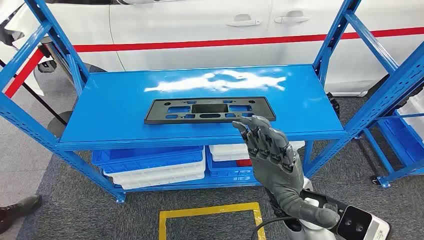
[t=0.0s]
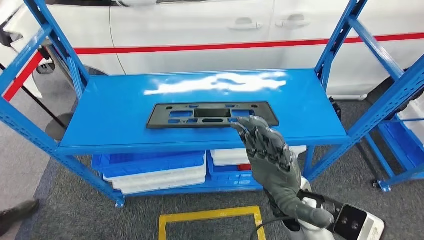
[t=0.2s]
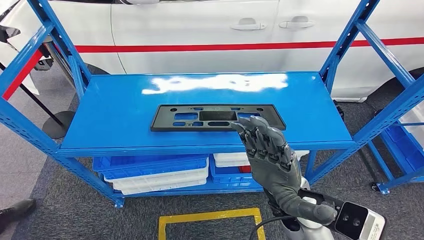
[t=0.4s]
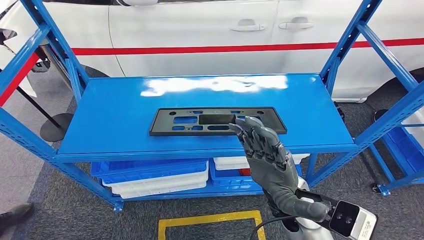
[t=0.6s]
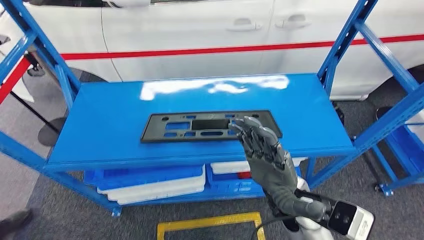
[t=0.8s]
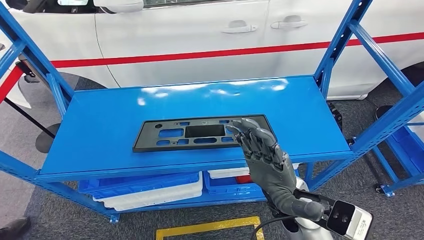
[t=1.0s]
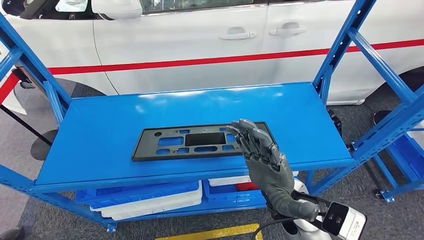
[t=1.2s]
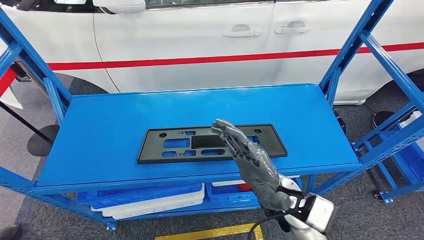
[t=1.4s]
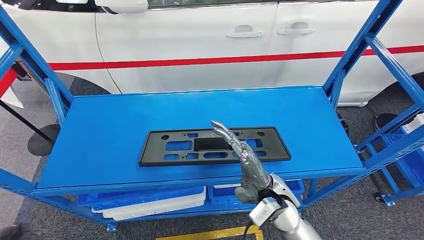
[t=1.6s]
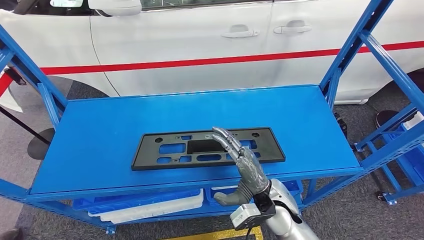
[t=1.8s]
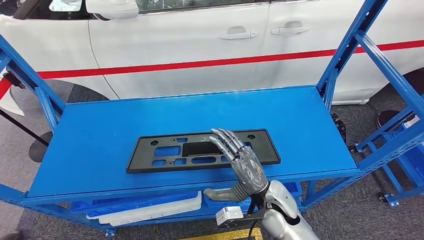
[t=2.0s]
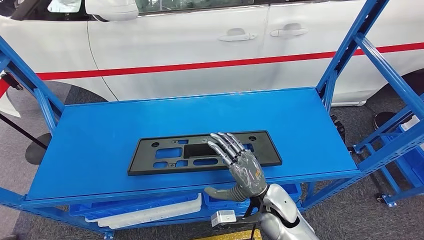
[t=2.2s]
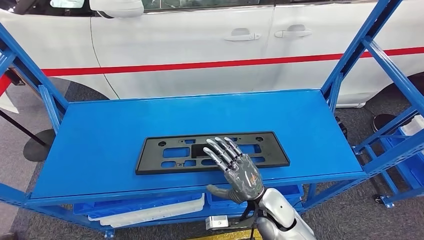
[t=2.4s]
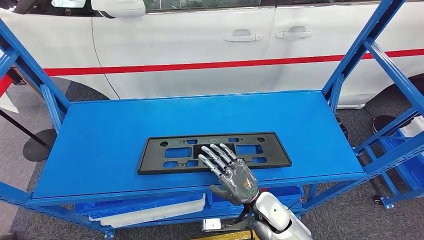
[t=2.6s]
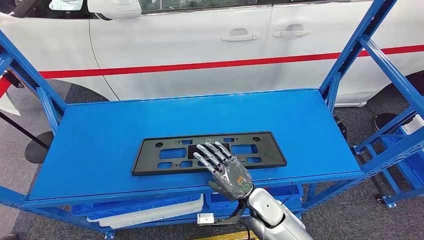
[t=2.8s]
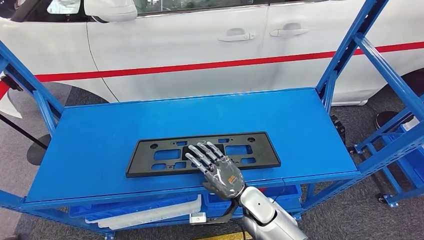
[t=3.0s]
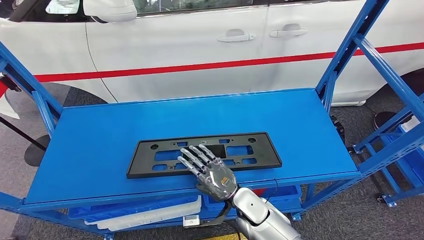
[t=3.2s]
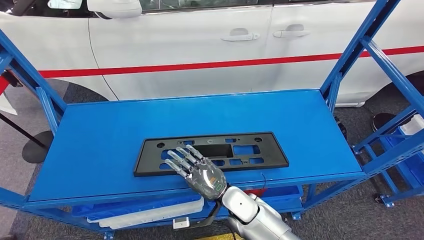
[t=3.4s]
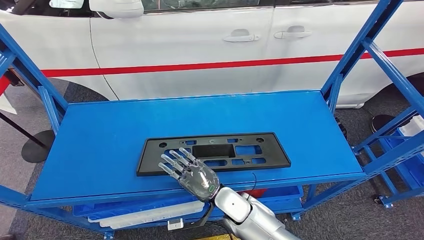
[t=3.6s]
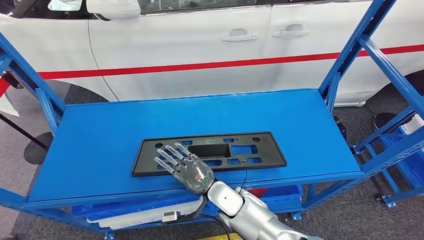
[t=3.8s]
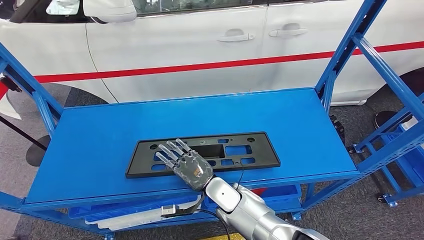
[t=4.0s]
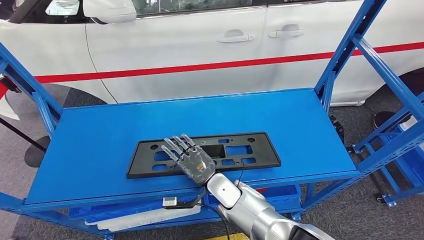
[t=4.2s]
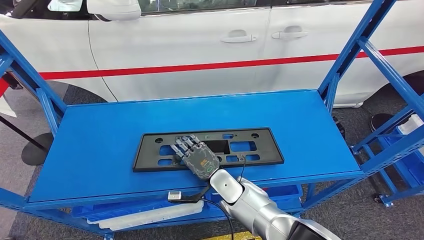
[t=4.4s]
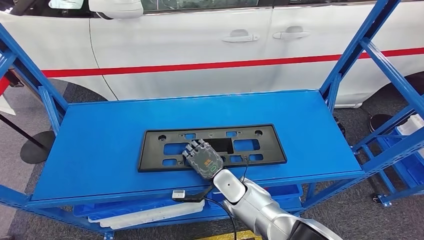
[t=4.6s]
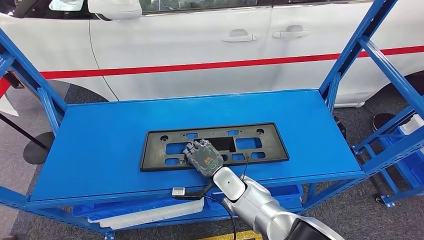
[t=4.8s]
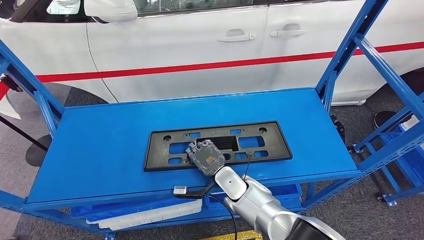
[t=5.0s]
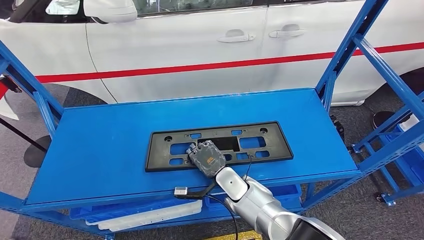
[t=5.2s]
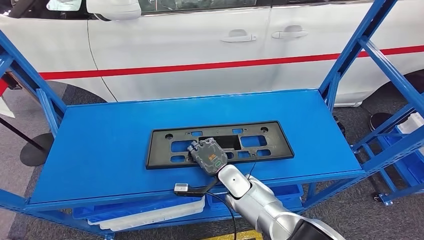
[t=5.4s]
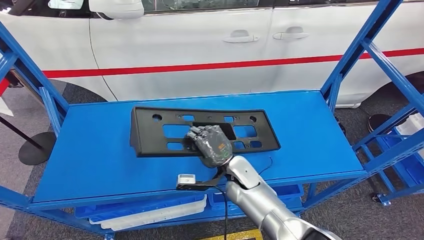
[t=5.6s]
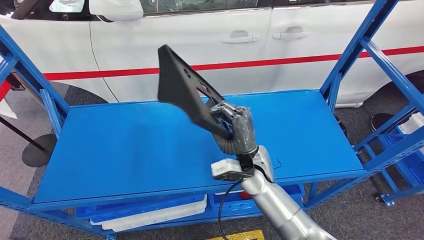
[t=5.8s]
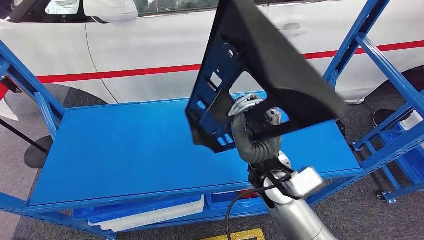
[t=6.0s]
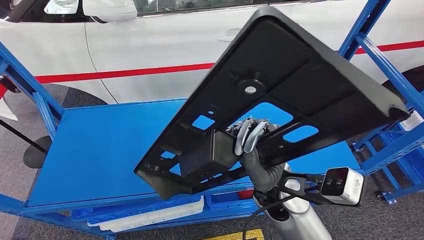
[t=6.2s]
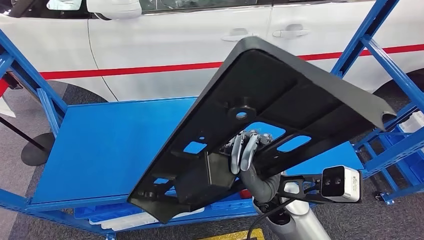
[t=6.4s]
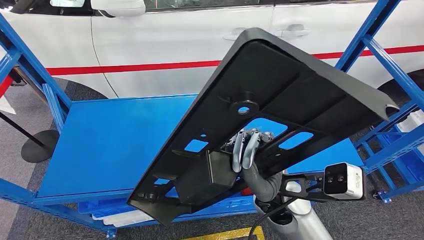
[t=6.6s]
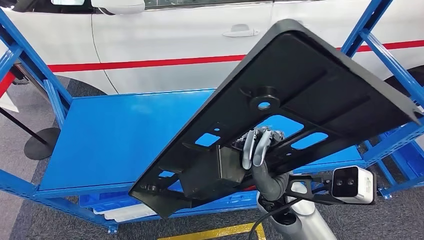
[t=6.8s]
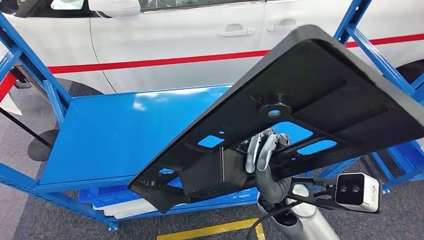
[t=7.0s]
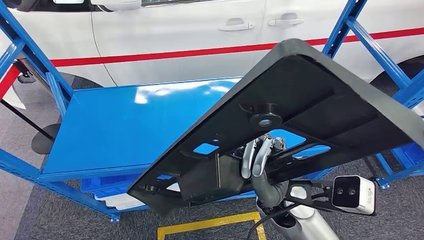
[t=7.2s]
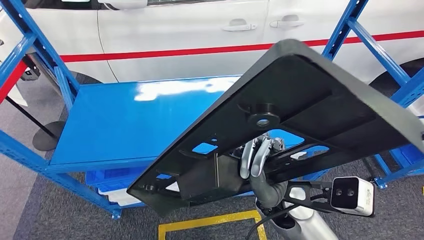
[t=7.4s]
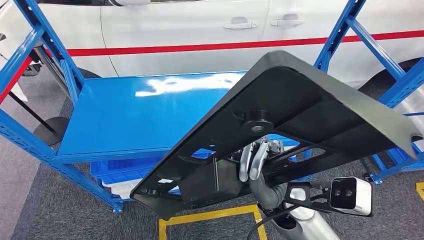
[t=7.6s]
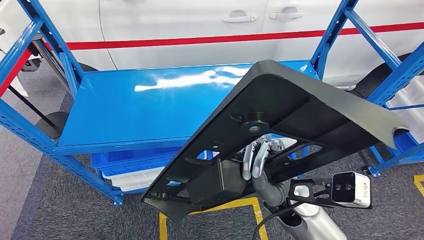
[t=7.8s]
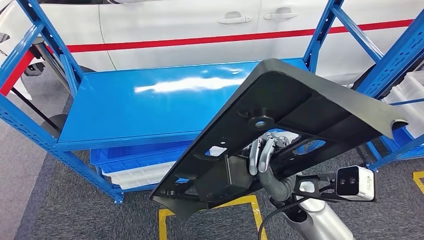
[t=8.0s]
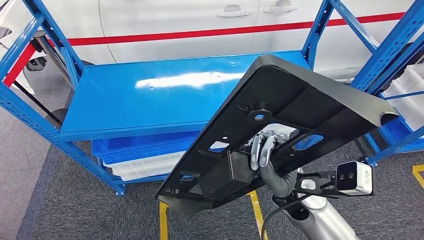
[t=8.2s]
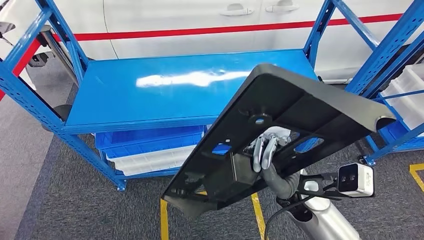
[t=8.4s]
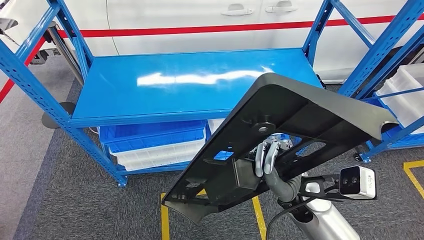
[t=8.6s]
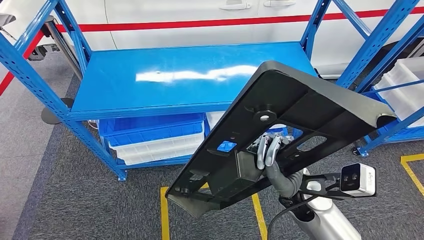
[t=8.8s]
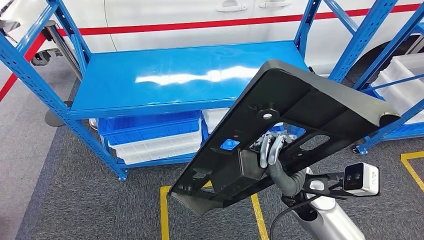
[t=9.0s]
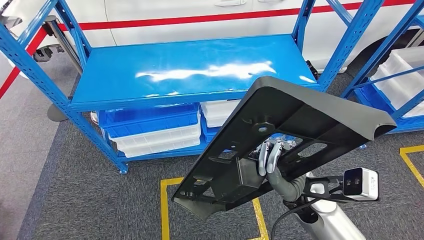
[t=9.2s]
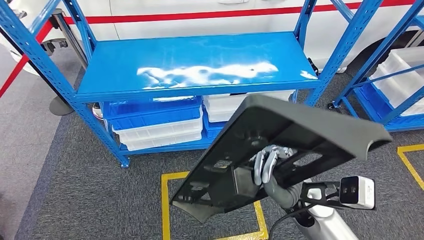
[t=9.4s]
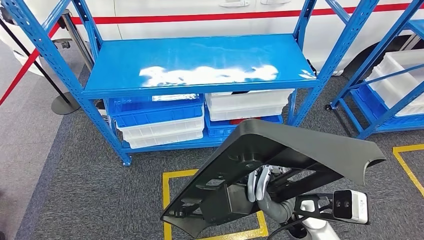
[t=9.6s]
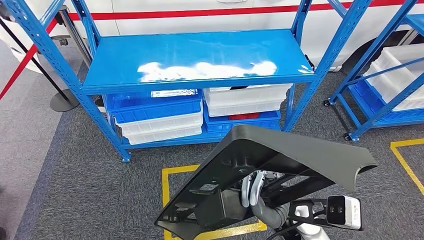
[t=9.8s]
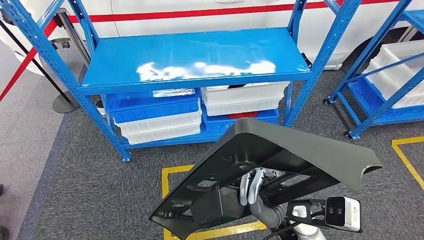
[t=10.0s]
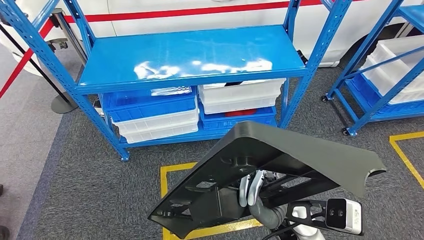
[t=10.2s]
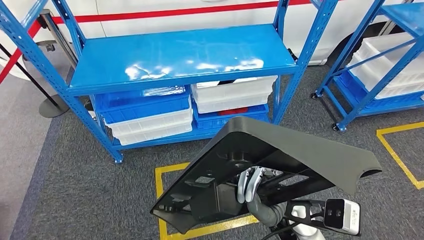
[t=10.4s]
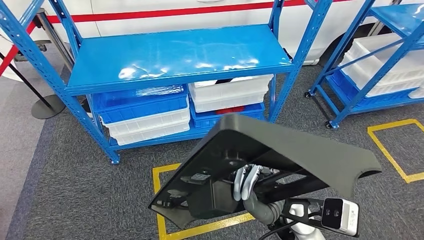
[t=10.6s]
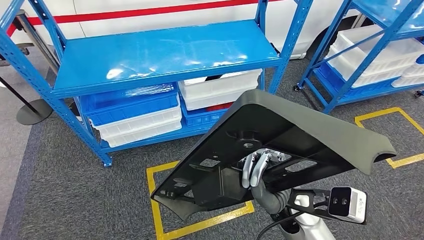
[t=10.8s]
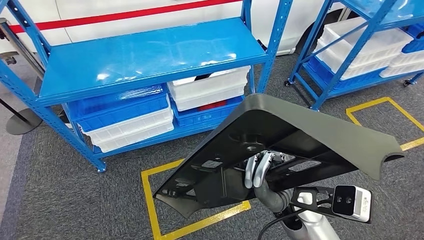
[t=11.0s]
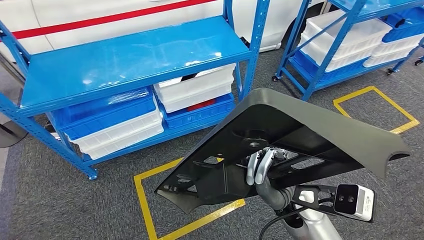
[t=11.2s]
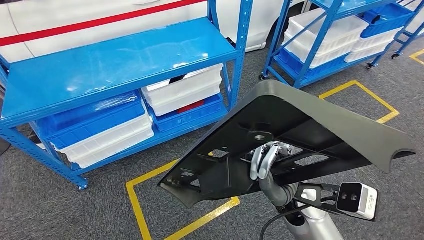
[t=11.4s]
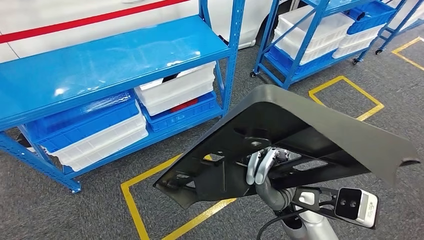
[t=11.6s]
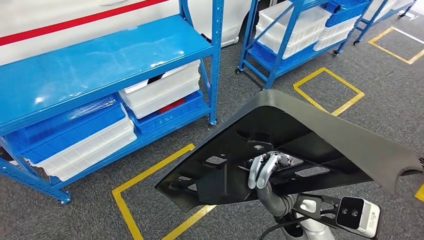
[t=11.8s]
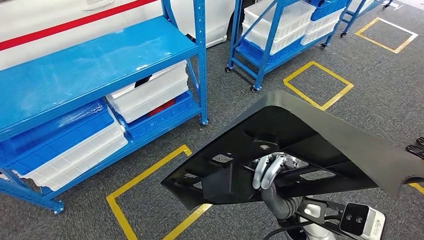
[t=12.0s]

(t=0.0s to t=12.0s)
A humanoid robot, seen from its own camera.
Step, t=0.0s - t=6.8s: Pick up the large material from the shelf.

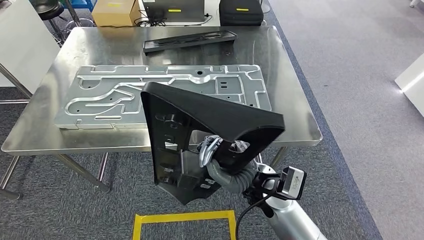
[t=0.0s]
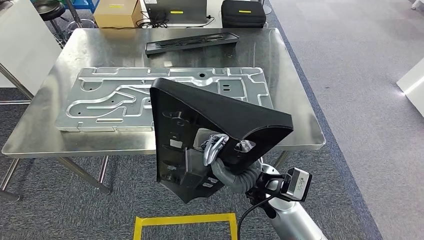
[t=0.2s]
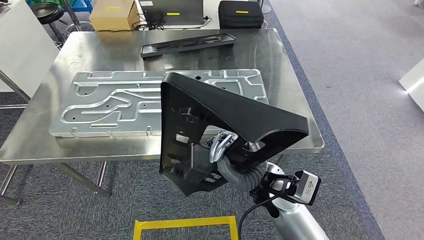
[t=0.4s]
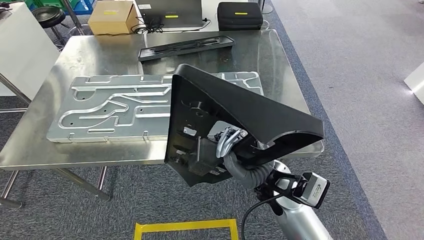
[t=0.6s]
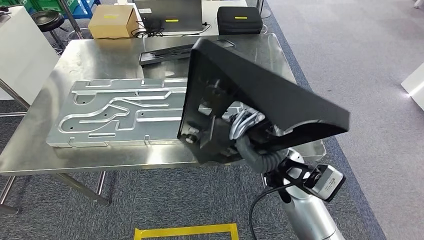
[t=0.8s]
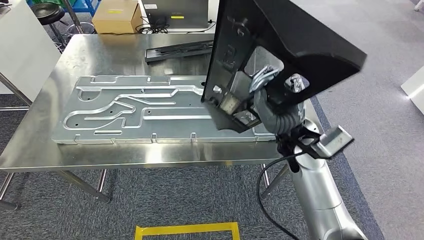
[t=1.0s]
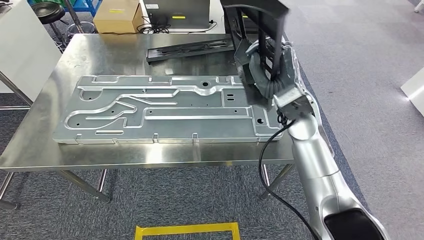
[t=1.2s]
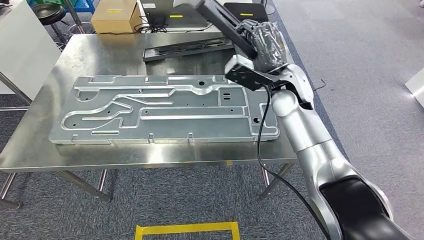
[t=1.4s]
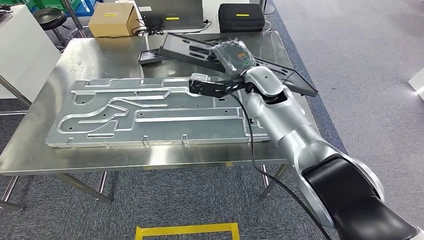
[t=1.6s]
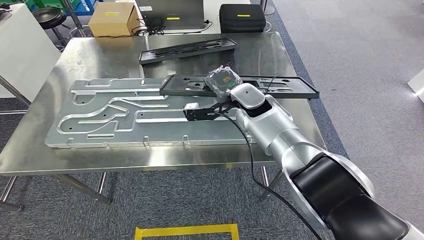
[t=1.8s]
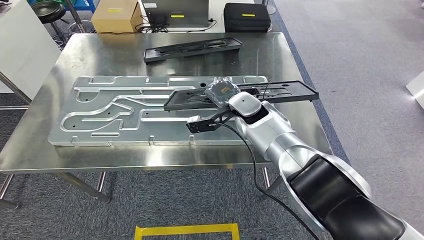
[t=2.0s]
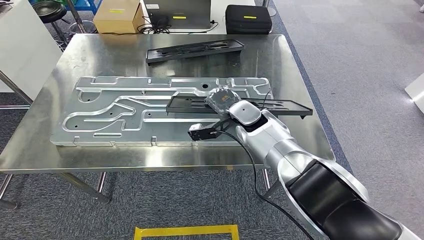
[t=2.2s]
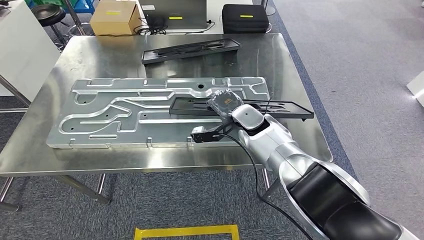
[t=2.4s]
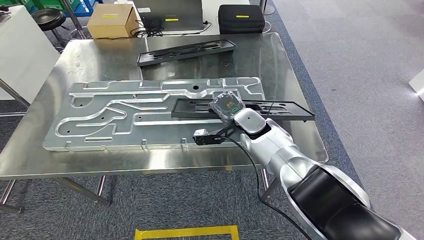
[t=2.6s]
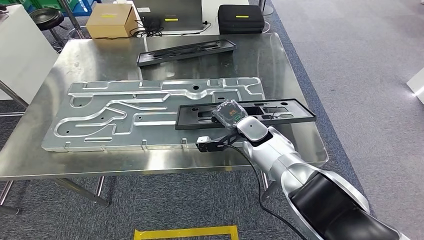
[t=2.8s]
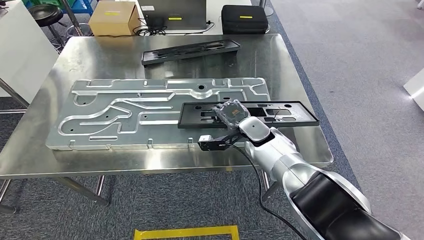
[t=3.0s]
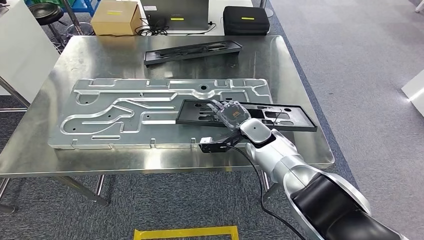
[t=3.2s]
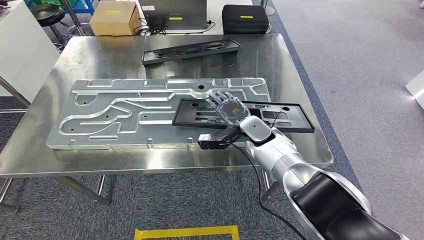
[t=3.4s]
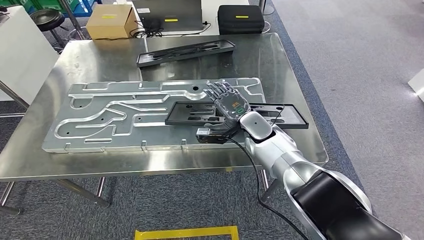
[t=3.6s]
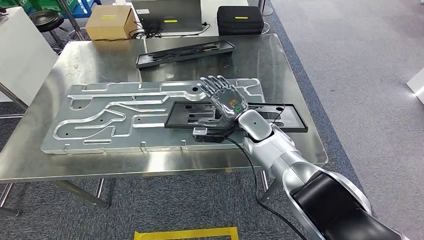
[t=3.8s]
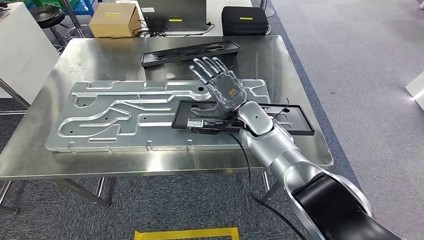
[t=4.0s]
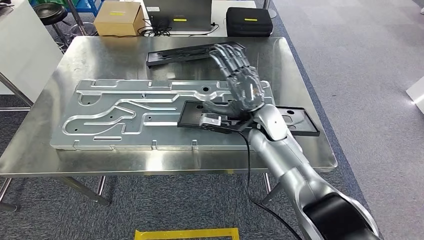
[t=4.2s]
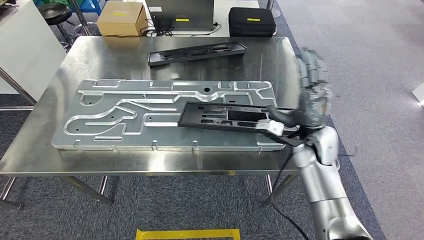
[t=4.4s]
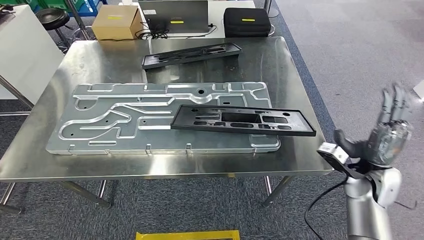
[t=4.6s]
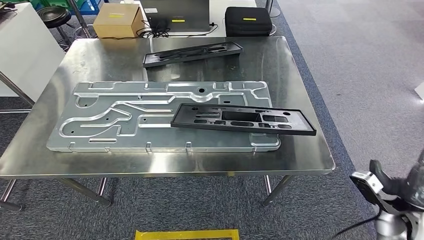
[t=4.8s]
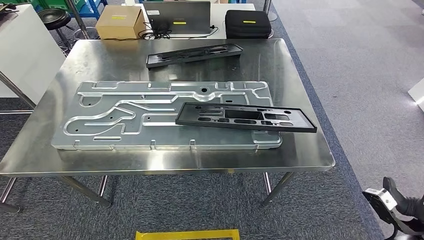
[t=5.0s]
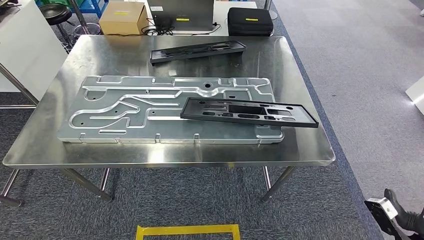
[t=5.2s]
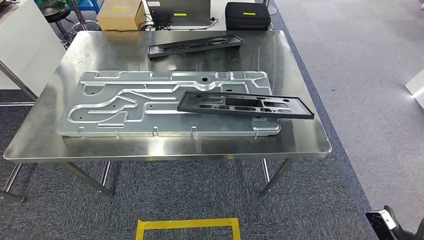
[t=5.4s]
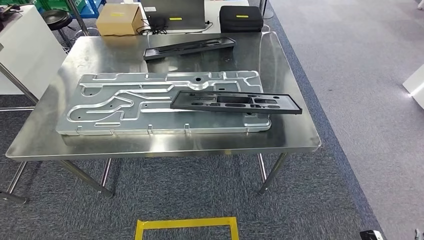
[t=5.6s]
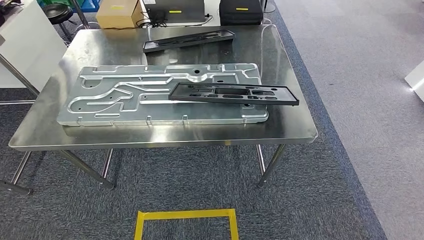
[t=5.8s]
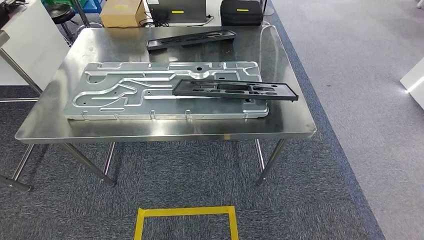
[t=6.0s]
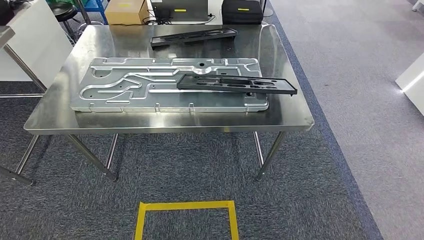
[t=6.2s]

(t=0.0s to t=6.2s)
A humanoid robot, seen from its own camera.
Step, t=1.6s - t=5.0s: Insert the large material into the corresponding slot on the workbench.
